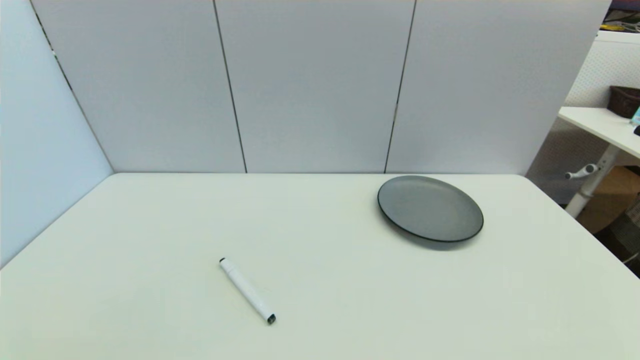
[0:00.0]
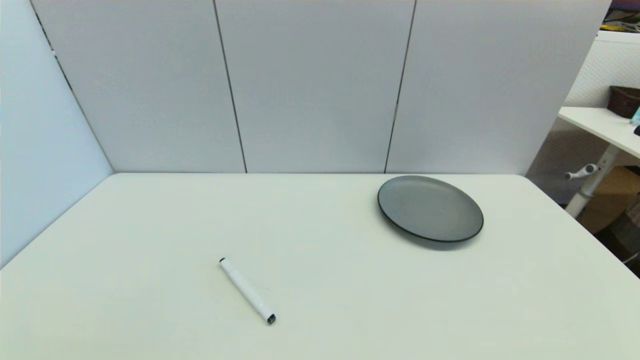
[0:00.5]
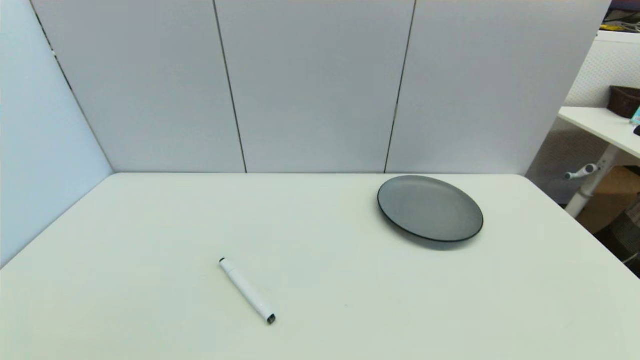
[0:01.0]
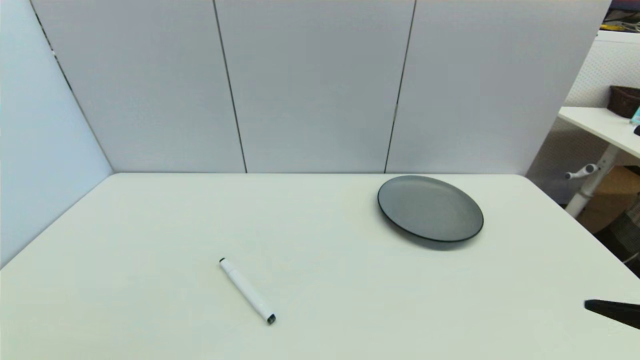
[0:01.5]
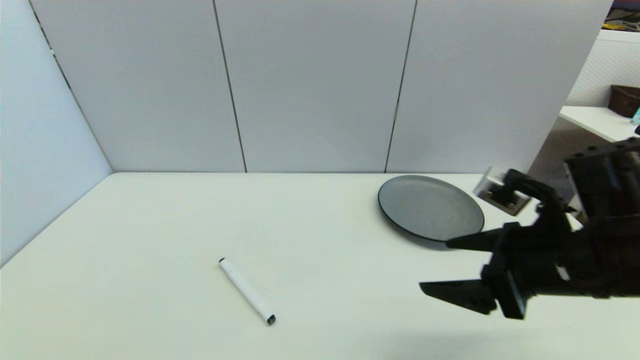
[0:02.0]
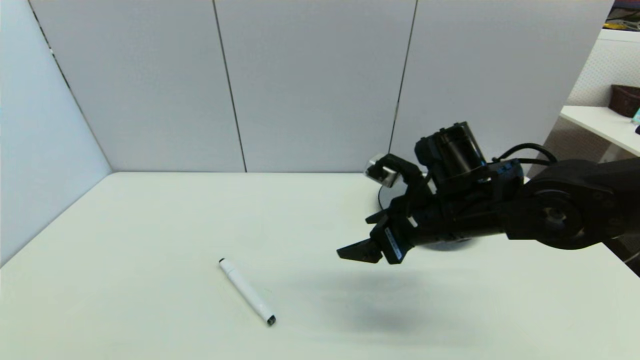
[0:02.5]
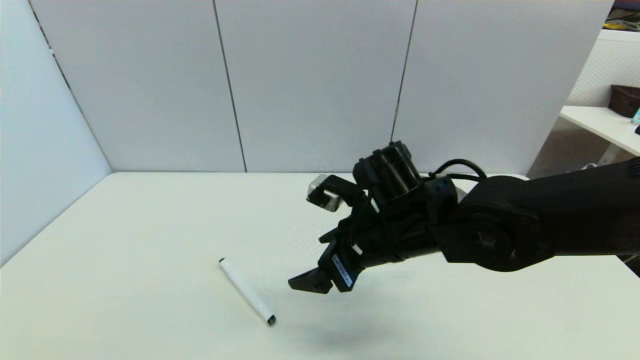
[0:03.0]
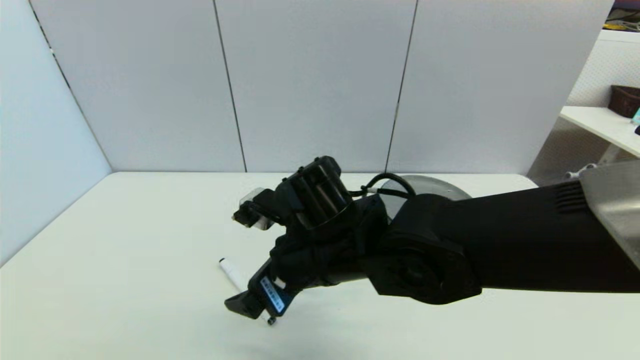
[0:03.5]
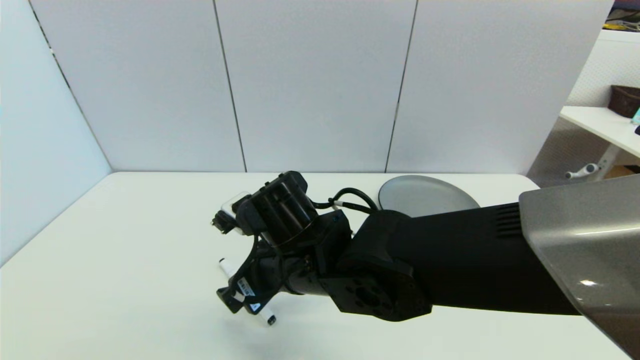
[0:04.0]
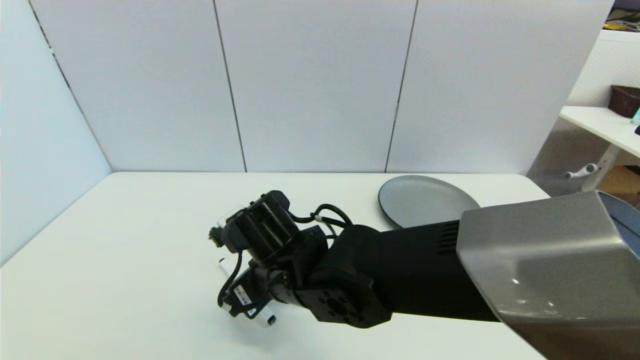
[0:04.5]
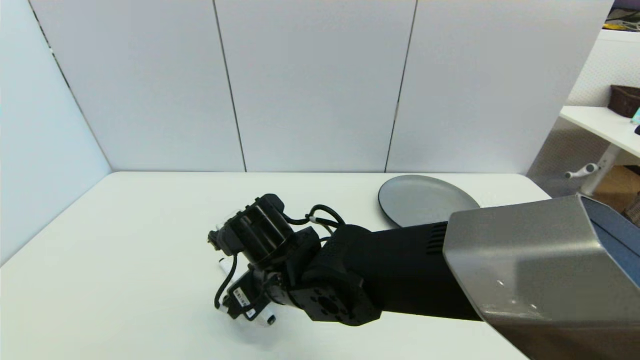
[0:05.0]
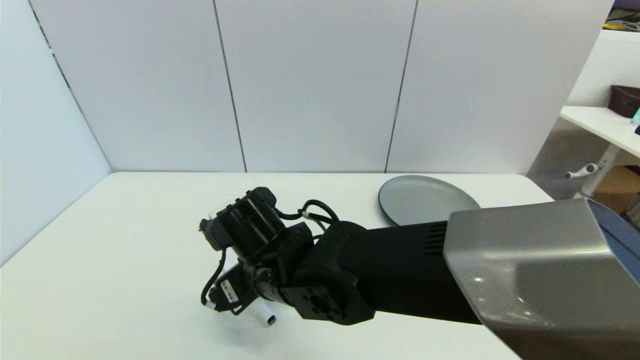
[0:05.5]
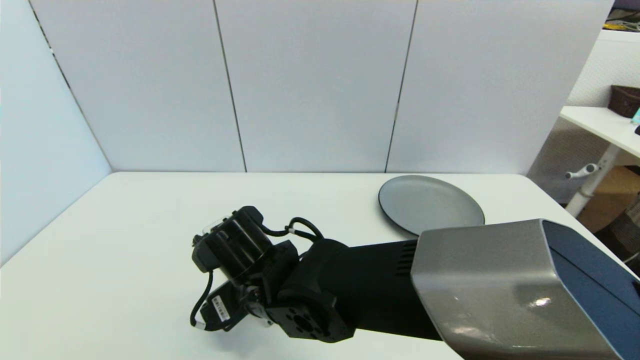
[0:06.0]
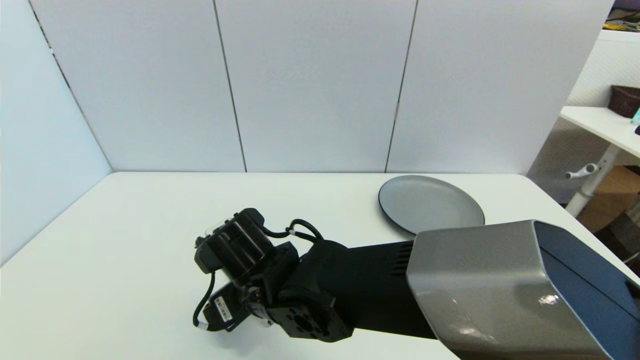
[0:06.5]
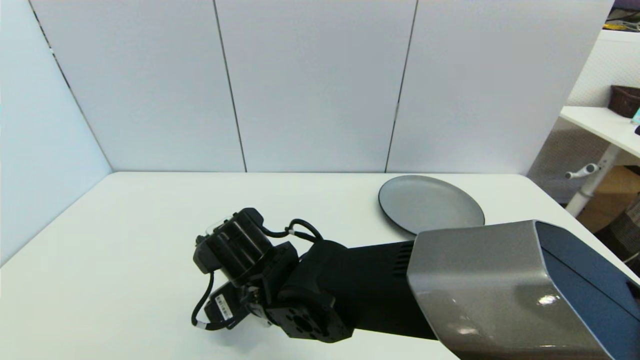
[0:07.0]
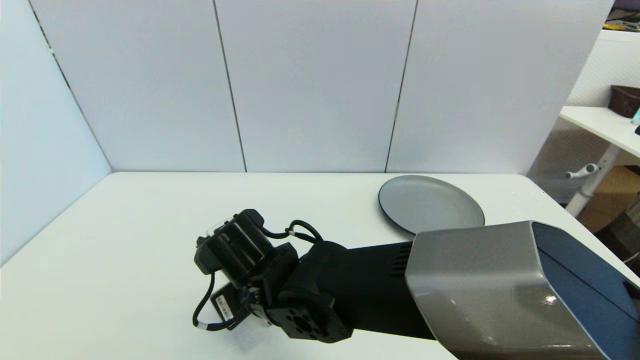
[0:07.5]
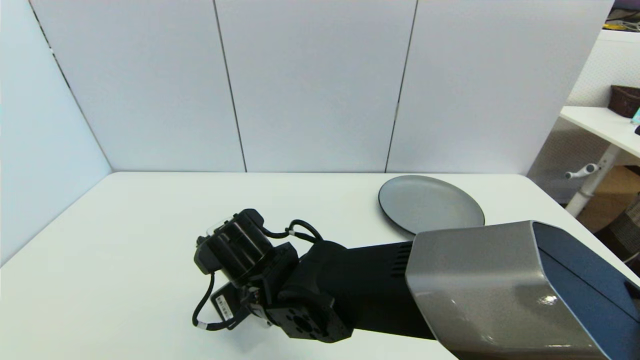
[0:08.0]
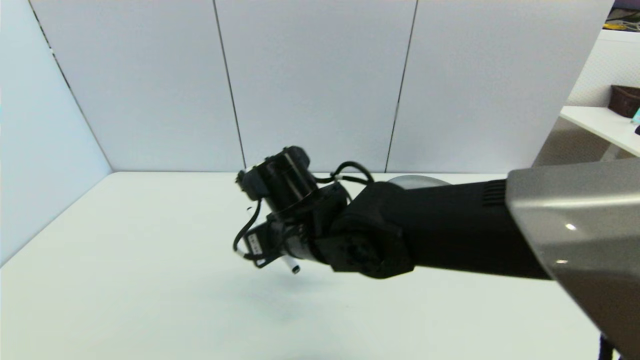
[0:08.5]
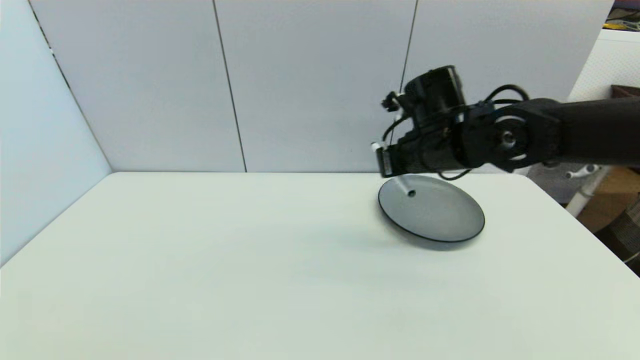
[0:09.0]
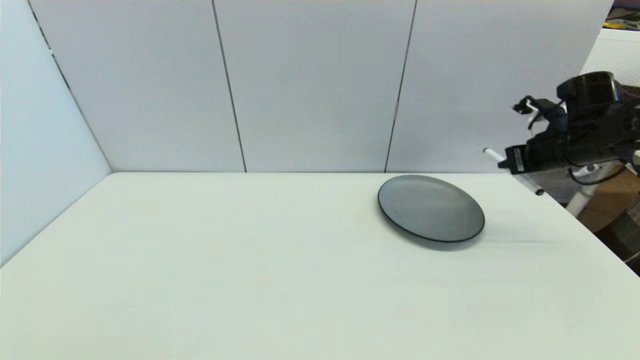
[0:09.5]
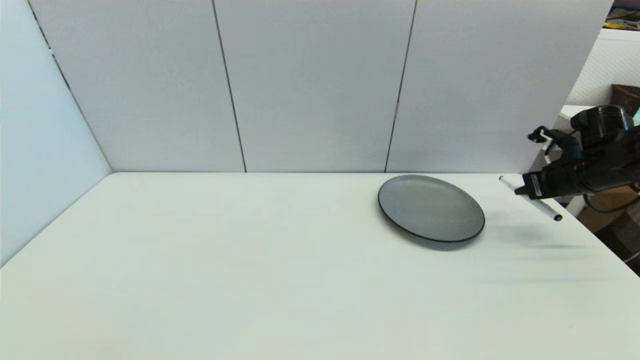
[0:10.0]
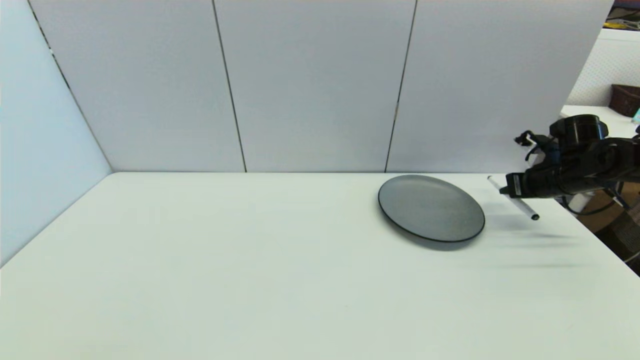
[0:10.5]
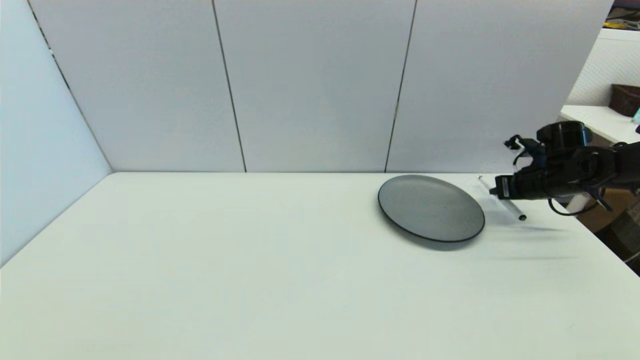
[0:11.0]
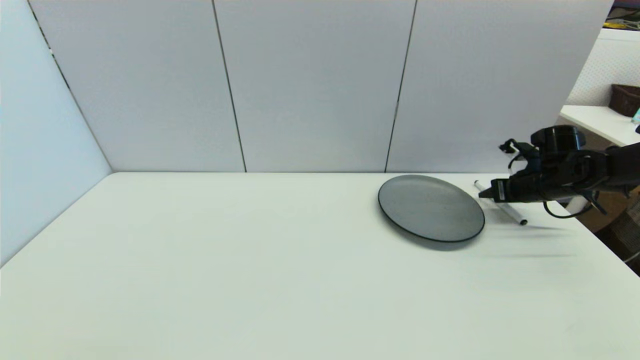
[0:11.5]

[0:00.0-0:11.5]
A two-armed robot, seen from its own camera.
Task of the whole recording: put the black marker in the designated position.
Step, 0:01.5 to 0:07.5: Grasp the Marker pen with right gripper.
0:00.0 to 0:02.0: The right gripper goes some 25 cm forward, upward and to the left.
0:02.0 to 0:04.0: The right gripper shifts some 25 cm to the left.
0:04.0 to 0:06.0: The right gripper ends up about 5 cm from where it was.
0:06.0 to 0:07.5: The right gripper closes its fingers.
0:07.5 to 0:09.5: The right gripper goes some 50 cm to the right, and closes.
0:09.5 to 0:11.5: The right gripper moves downward, about 10 cm, and opens up.

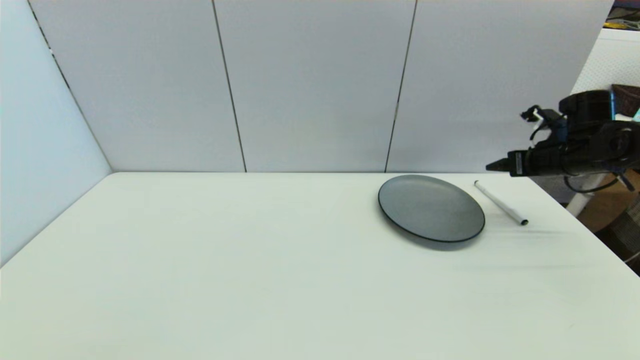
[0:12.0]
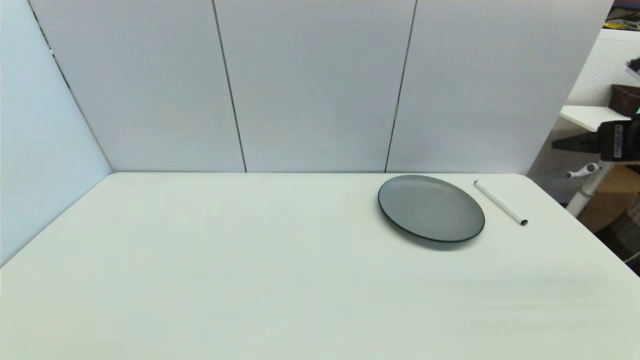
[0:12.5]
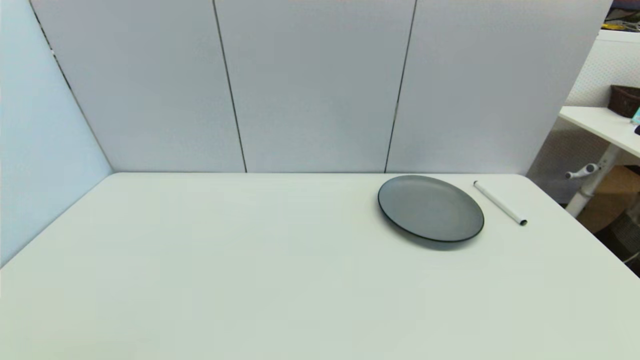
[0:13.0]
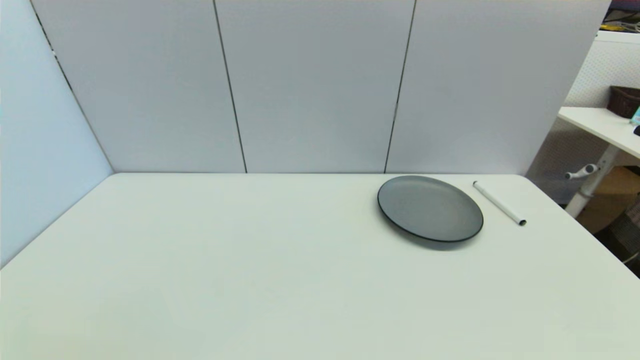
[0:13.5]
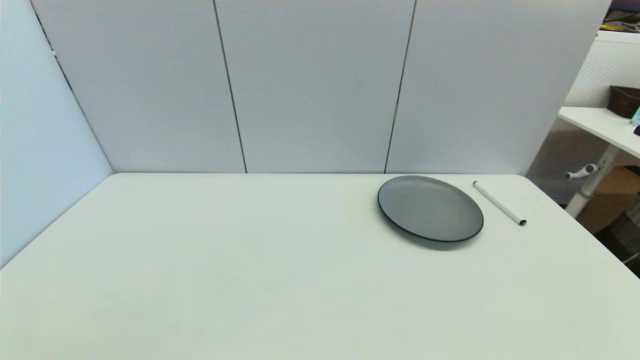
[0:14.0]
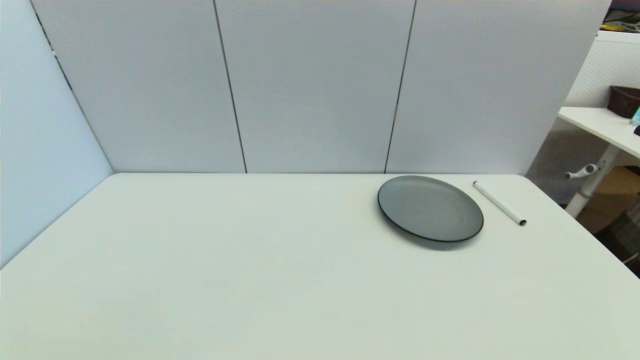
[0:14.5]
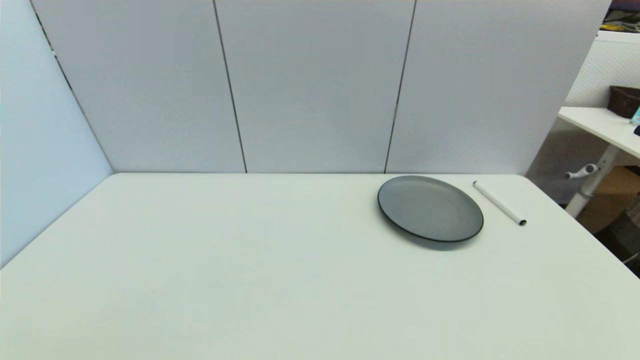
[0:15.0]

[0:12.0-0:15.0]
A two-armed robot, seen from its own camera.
Task of the whole recording: put the black marker in the designated position.
0:12.0 to 0:13.5: The right gripper goes about 40 cm backward.

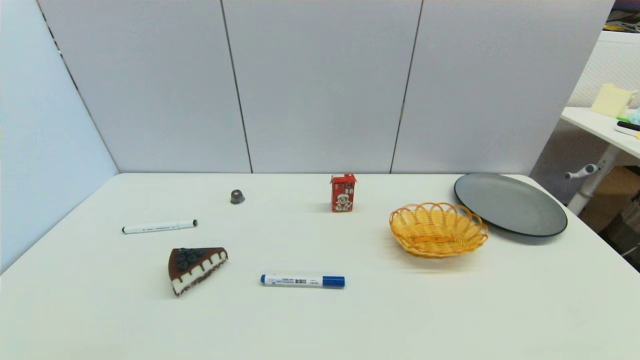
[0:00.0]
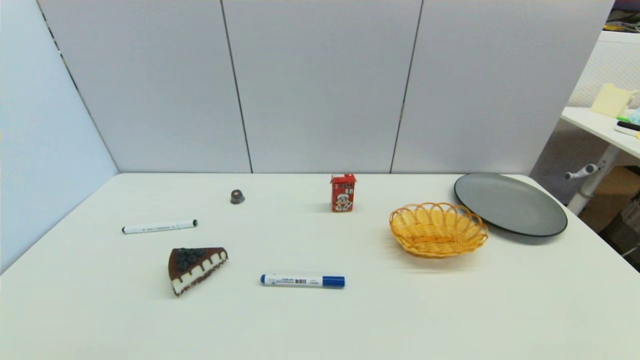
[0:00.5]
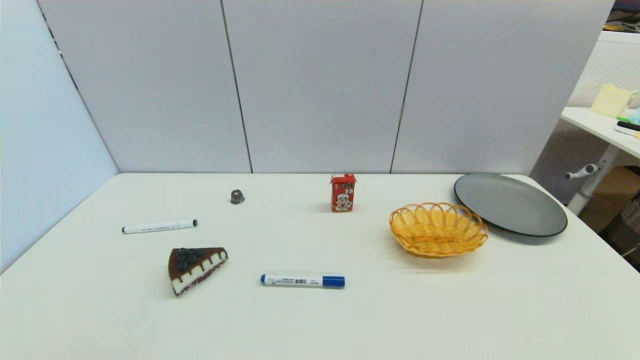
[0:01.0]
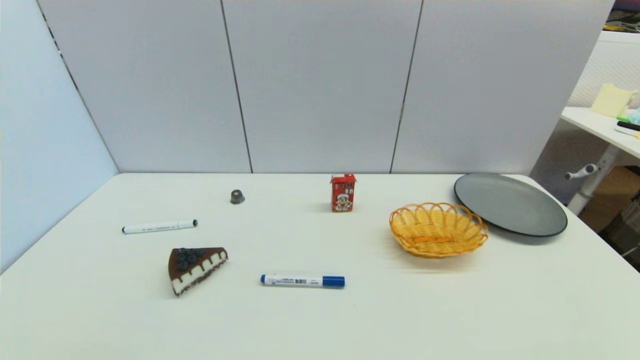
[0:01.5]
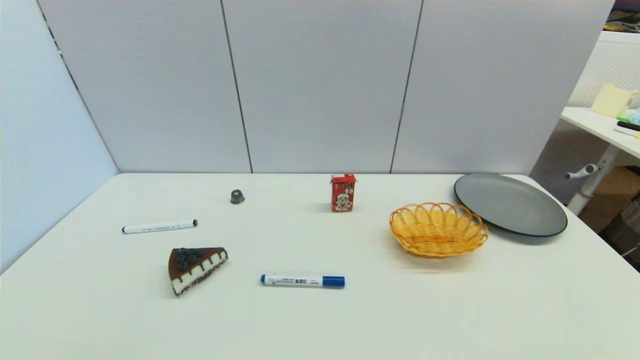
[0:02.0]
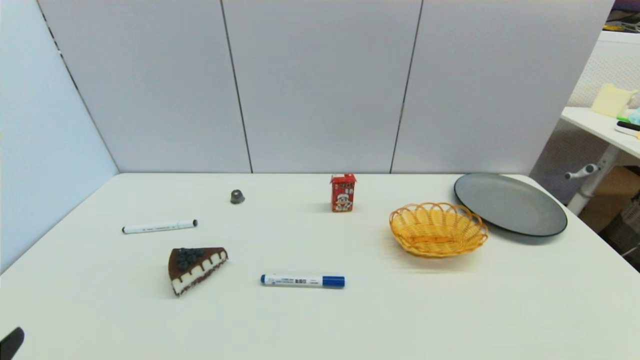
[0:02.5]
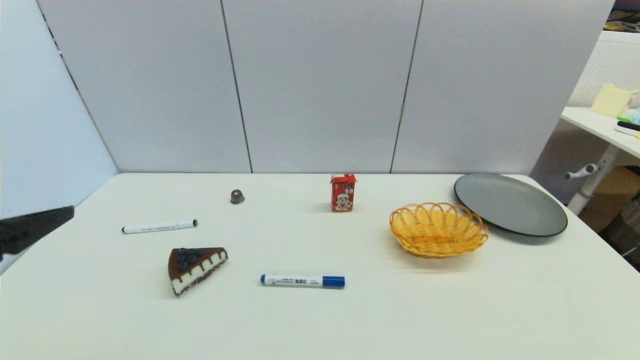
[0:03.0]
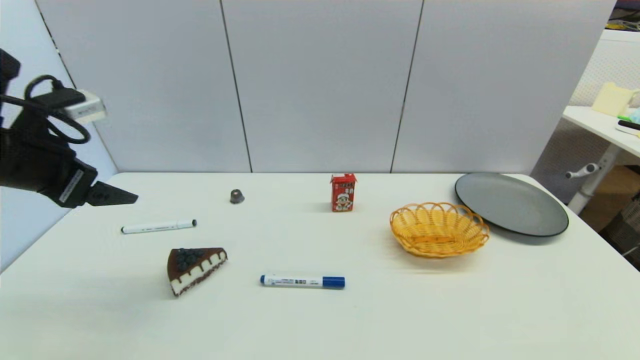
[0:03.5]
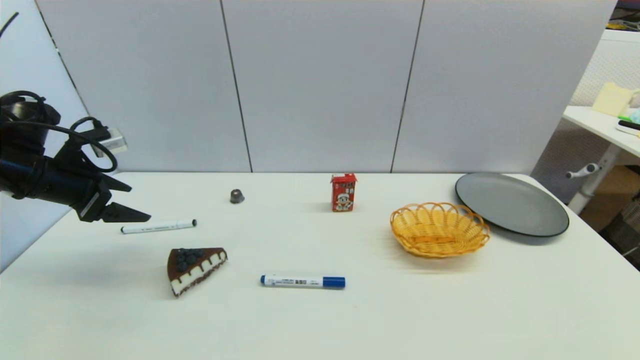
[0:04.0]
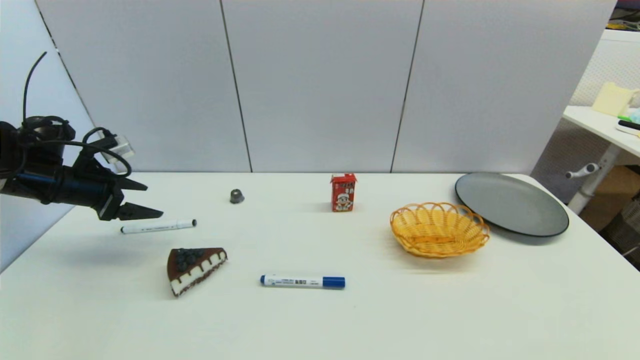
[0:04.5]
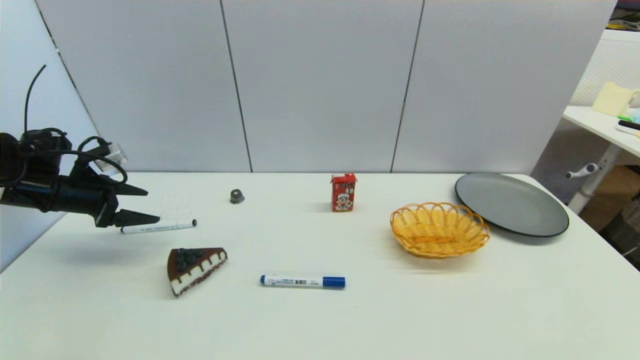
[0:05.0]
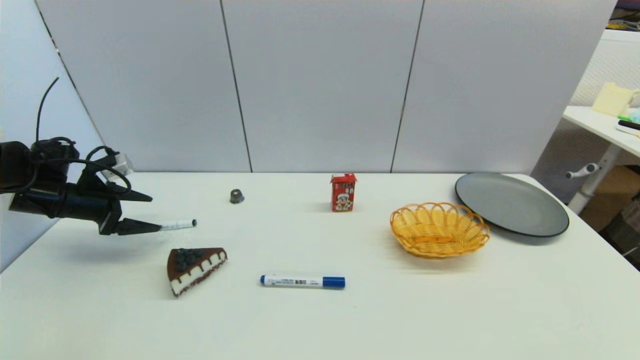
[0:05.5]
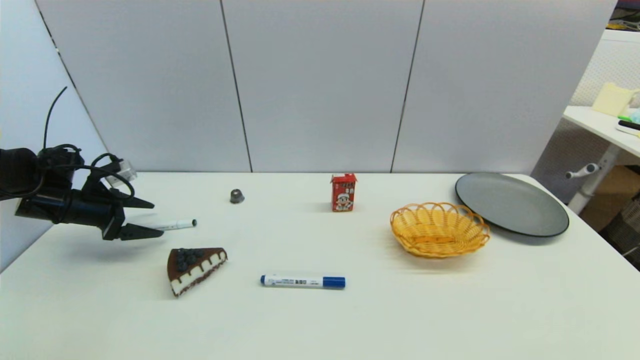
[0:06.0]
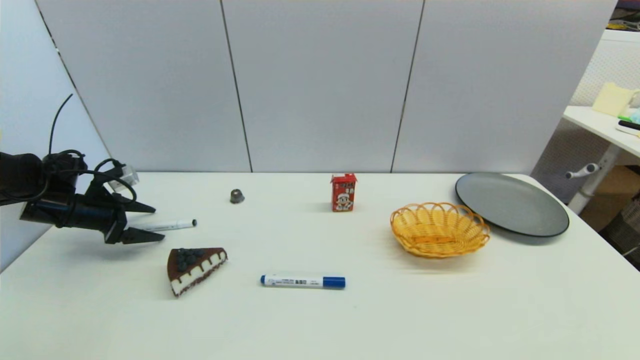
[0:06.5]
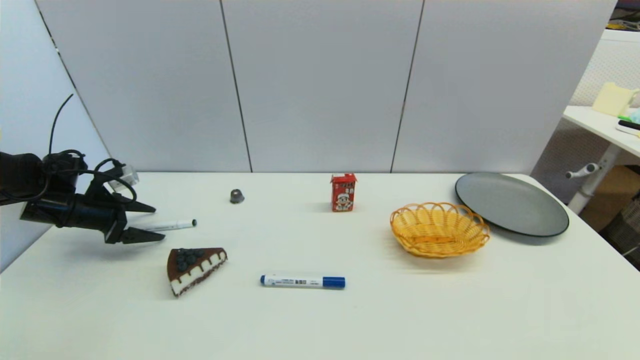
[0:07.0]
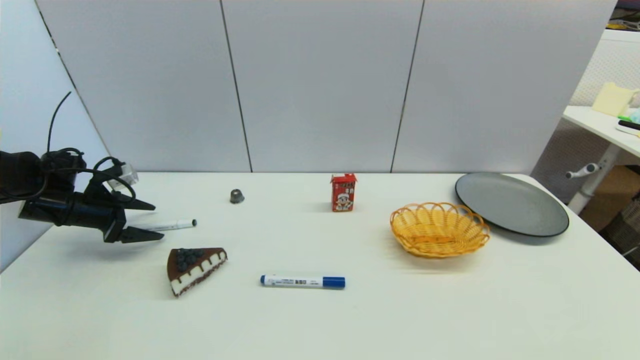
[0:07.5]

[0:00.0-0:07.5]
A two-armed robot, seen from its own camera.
Task of the whole recording: put the black marker in the designated position.
0:00.0 to 0:02.0: Both grippers stay about where they are.
0:02.0 to 0:04.0: The left gripper travels forward and upward by some 35 cm.
0:04.0 to 0:05.5: The left gripper shifts approximately 5 cm downward.
0:05.5 to 0:07.5: The grippers make only small movements.
